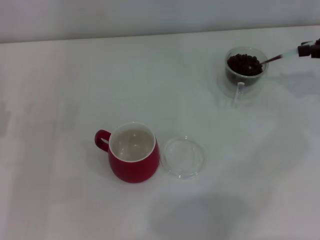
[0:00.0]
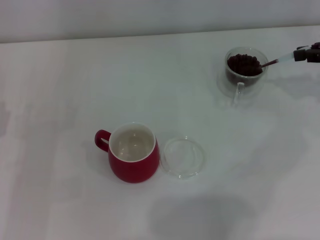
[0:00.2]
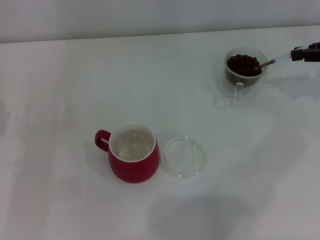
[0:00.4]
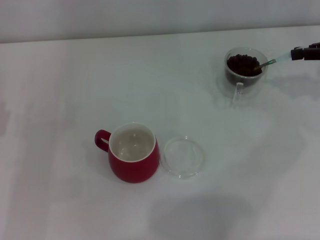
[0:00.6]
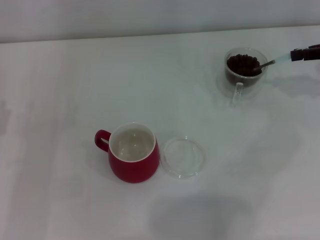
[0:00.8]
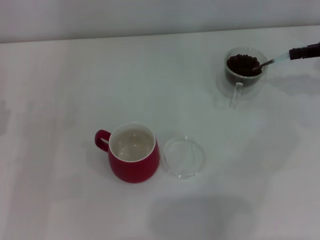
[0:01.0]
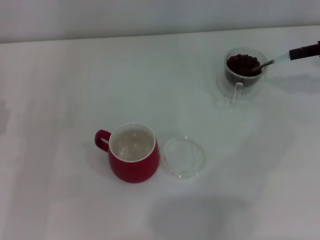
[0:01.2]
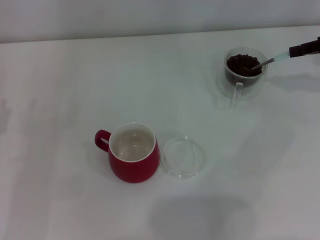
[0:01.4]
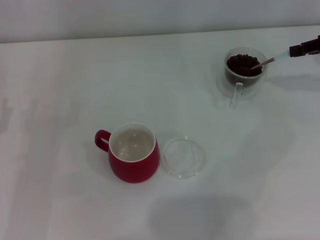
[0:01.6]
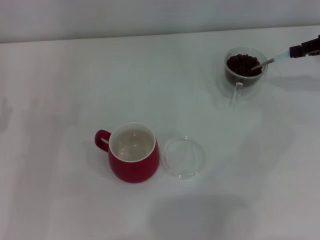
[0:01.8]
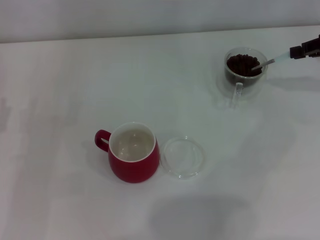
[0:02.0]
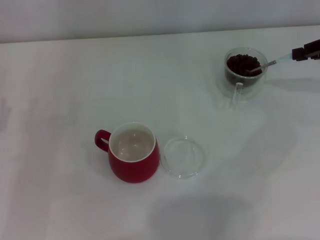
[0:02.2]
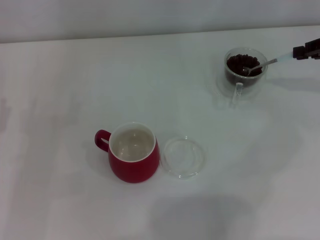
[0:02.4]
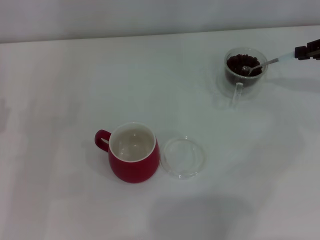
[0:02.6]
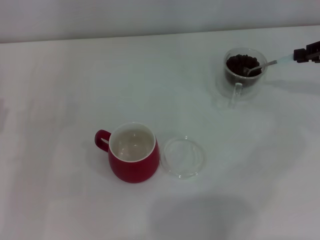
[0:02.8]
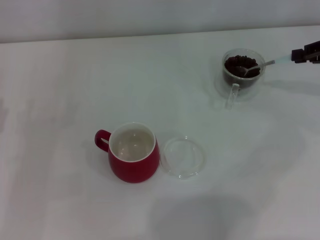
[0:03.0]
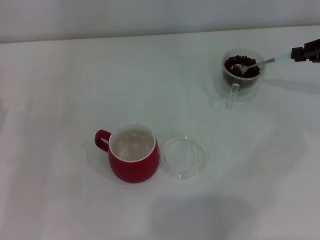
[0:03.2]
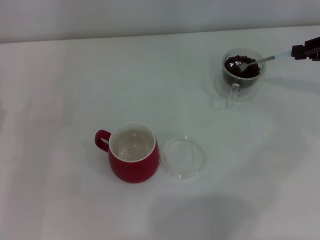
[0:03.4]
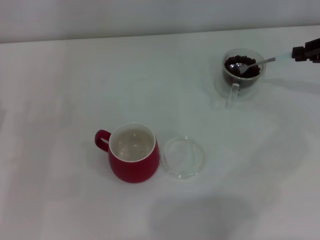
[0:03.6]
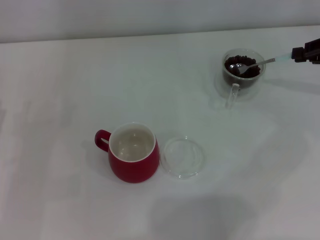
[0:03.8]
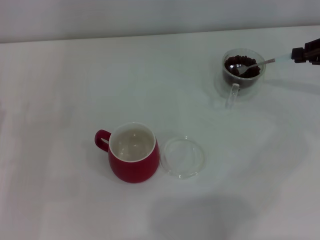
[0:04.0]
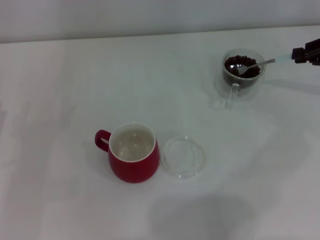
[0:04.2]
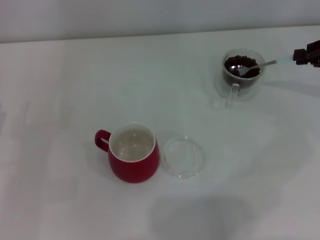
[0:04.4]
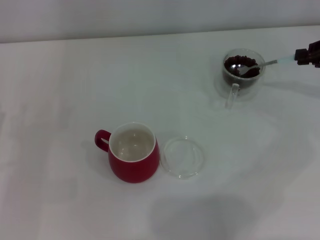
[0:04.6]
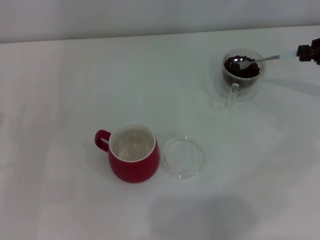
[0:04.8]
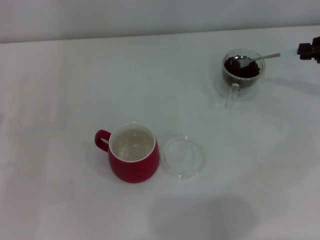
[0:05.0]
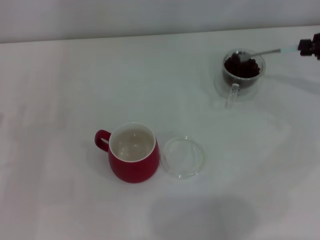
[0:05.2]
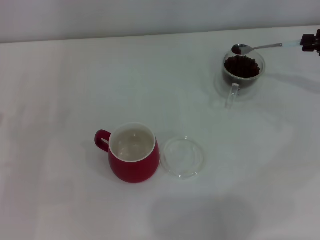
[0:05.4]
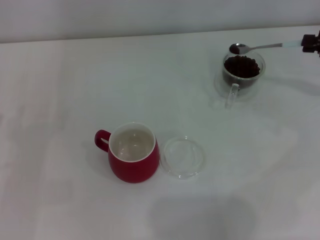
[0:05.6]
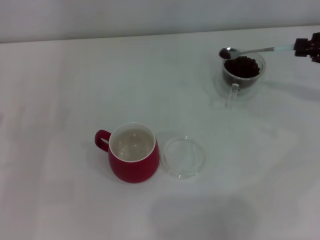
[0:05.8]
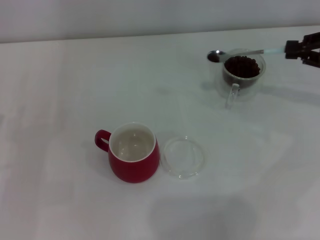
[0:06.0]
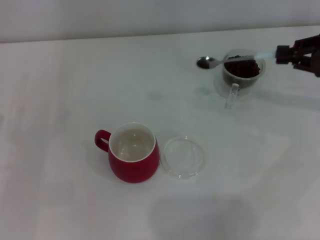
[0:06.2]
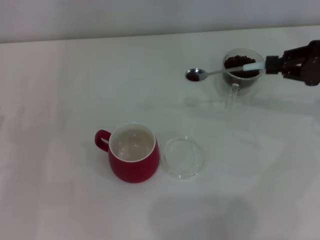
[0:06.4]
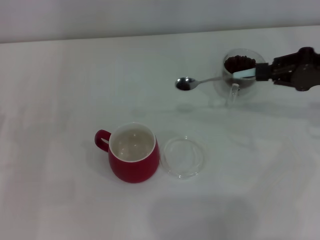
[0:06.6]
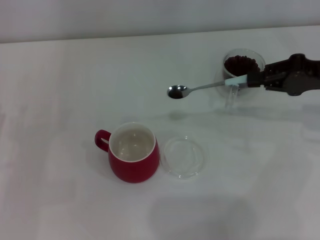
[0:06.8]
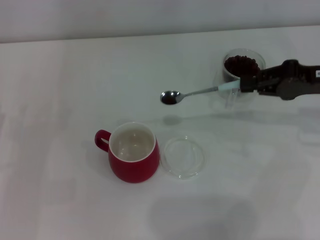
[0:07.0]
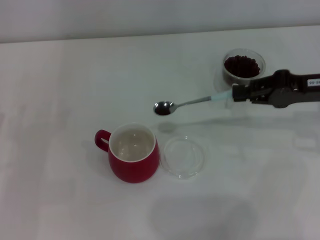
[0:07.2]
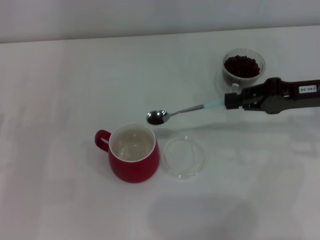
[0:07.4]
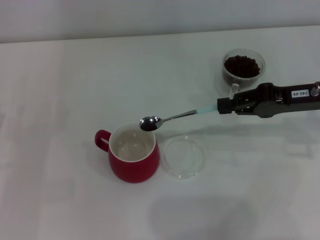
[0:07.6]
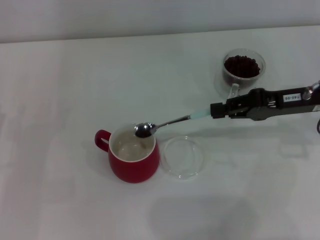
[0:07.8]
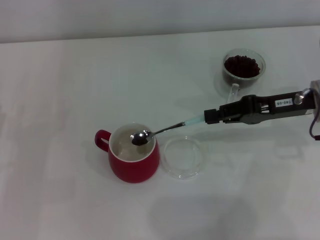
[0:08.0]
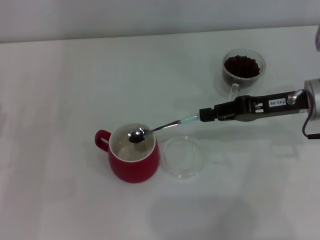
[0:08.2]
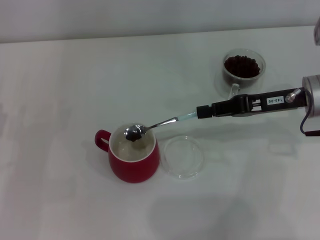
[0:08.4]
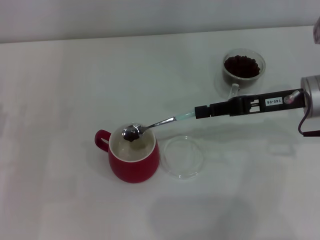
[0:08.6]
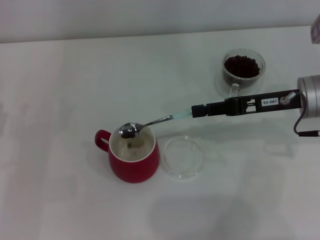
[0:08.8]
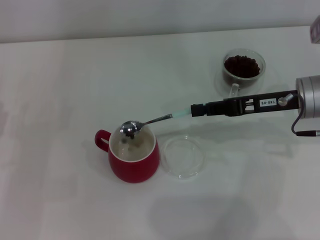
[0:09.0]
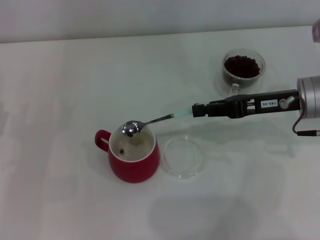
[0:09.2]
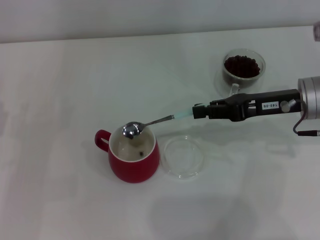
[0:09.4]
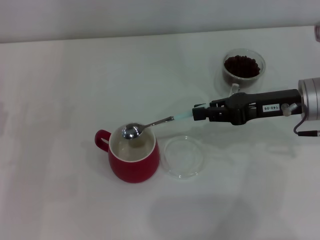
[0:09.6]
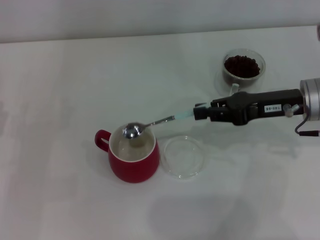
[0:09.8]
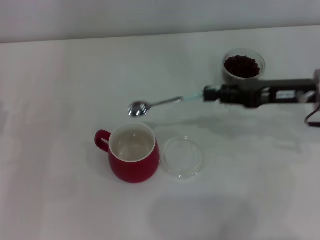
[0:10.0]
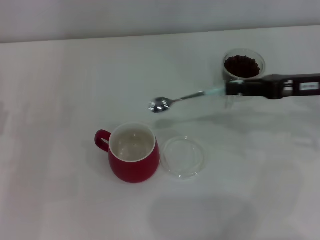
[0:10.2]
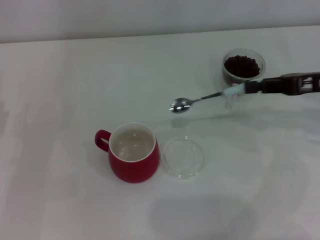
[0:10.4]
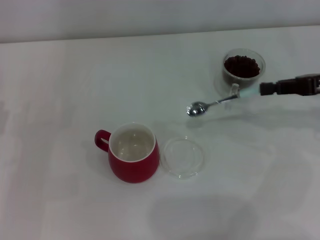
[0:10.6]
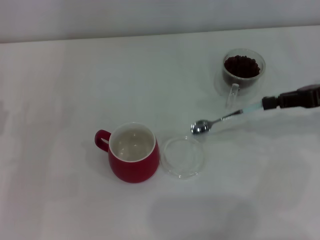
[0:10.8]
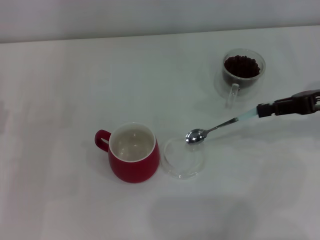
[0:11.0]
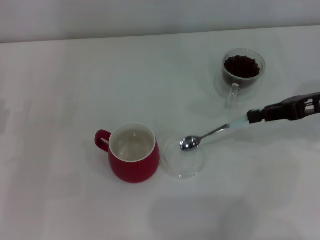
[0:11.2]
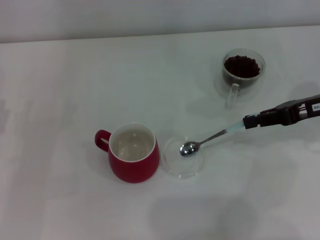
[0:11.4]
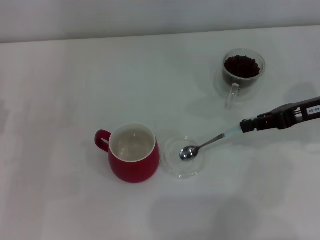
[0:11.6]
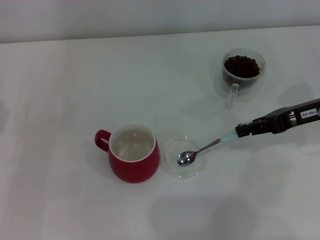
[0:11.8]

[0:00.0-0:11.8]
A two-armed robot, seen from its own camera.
Task of the whole recording: Use a blue spoon to take out the coffee beans from the glass and pour them into the red cup.
Step, 0:00.0 to 0:09.4: Scoop a spoonful of beans into the cup with the right gripper.
0:01.4 to 0:03.0: The grippers stay close to where they were, moving slightly.
0:04.4 to 0:06.0: The grippers move only a little.
0:06.0 to 0:07.4: The right gripper heads to the left, covering some 10 cm.
0:07.4 to 0:08.8: The grippers move only a little.
0:08.8 to 0:10.4: The right gripper shifts about 10 cm to the right.
0:10.4 to 0:11.8: The grippers make only small movements.

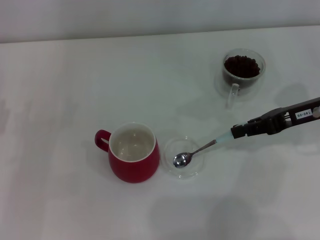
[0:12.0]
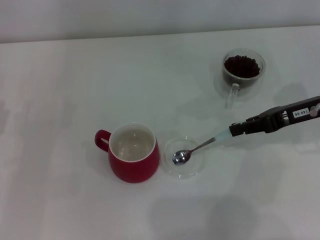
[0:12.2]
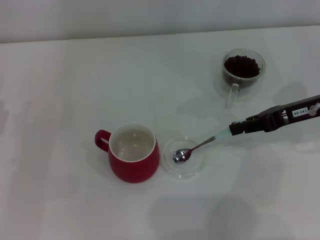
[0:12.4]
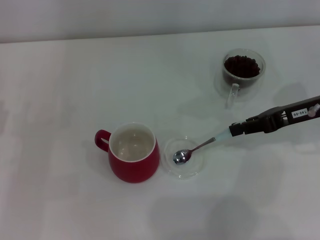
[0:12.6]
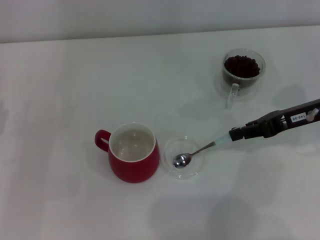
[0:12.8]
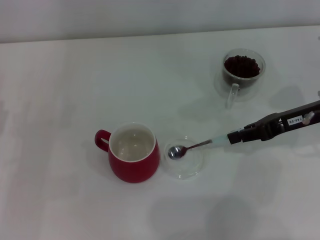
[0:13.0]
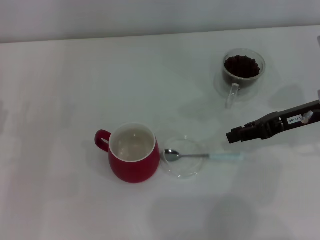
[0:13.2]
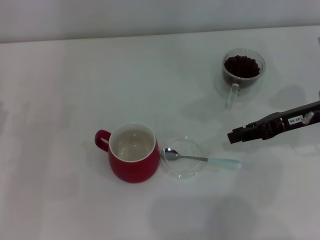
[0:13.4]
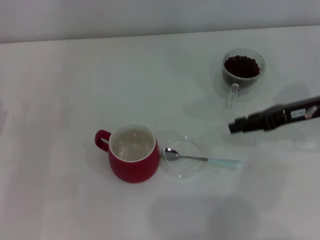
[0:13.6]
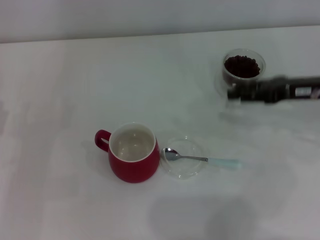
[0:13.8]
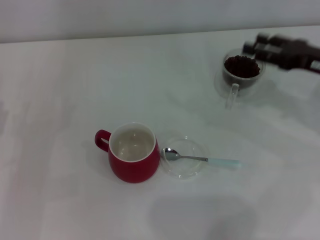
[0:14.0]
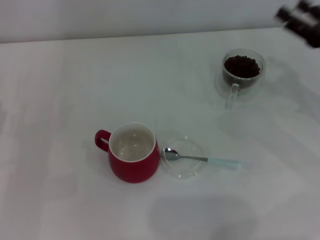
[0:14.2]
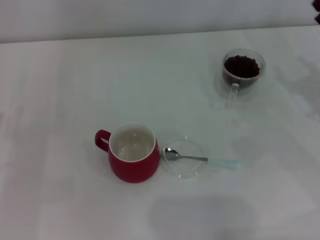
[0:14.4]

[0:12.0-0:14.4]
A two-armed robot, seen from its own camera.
Task of the whole recording: Use a blue spoon to take out the coffee beans from the glass and pour them into the red cup.
0:12.0 to 0:13.2: There are only small adjustments of the grippers.
0:13.2 to 0:14.4: The right gripper shifts about 5 cm to the right, and opens.
